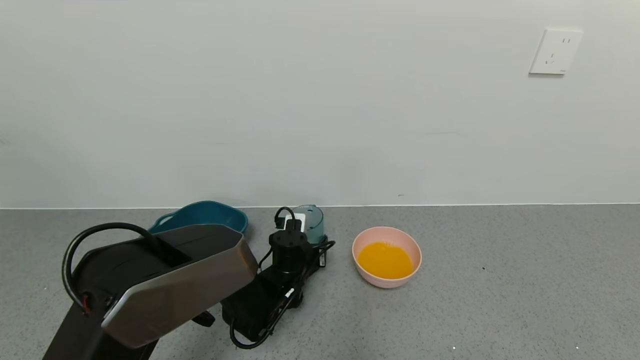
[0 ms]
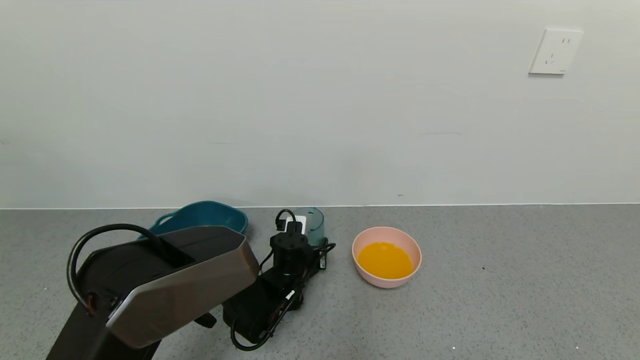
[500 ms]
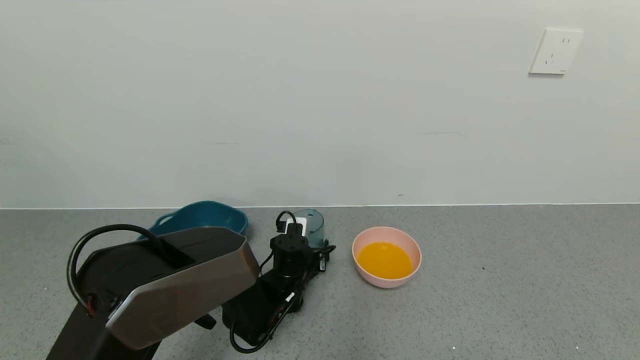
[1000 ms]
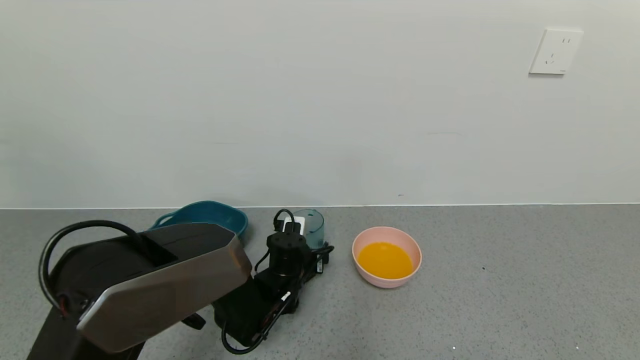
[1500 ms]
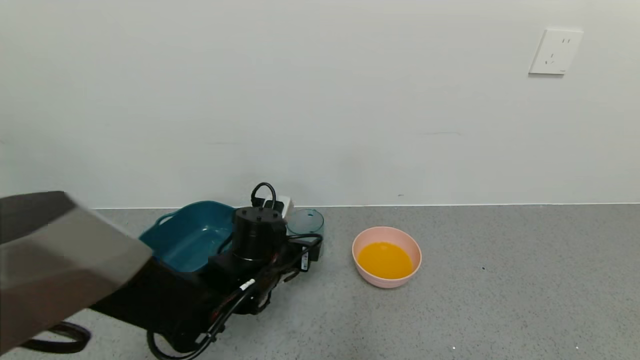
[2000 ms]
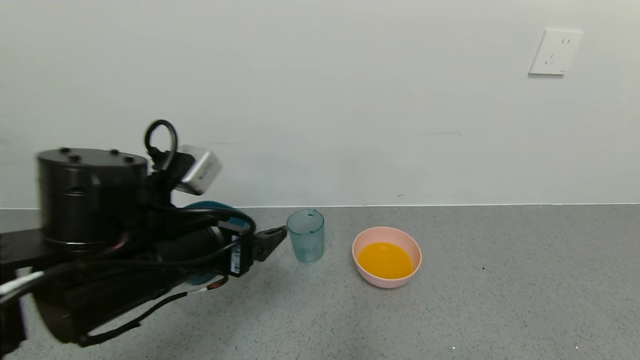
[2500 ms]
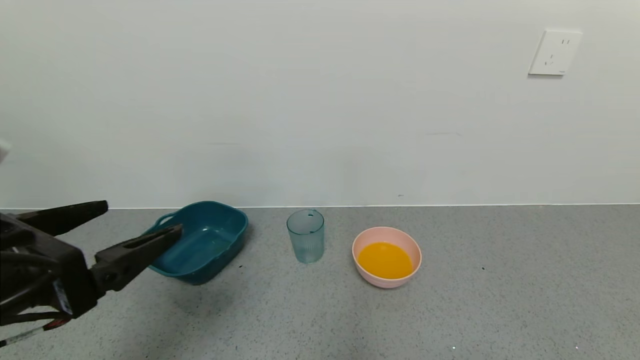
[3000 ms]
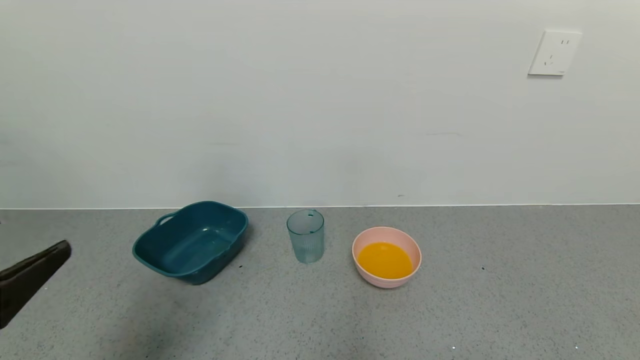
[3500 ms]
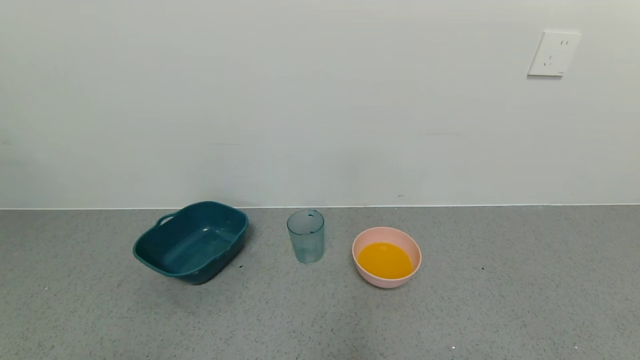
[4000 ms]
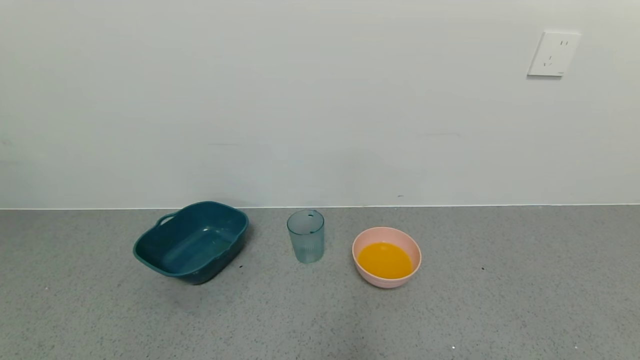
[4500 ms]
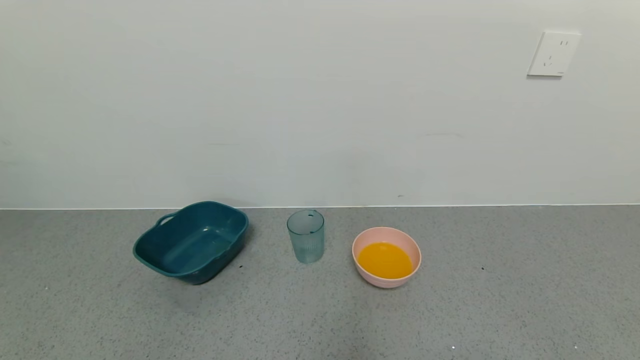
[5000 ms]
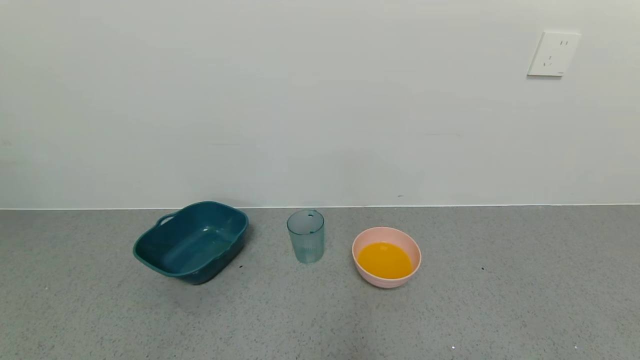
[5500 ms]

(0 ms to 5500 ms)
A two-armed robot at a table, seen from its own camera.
Task of the whole recording: use a gripper to pick up the cup and pour the liquid into a bowl or tray.
Step, 0 ms - 2000 ms: Place the glass cup with the left gripper.
0 ms - 2000 ms: The left gripper heads upward and backward, covering roughly 15 cm, and opens its fingers.
2000 ms - 3500 ms: The left gripper travels backward, to the left and upward by some 30 cm.
3500 ms - 5500 ms: The left gripper travels downward and backward by about 20 cm.
